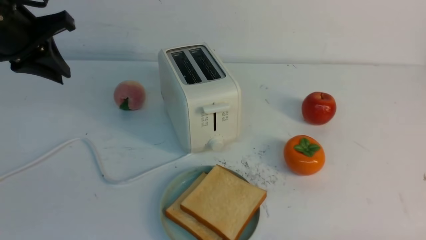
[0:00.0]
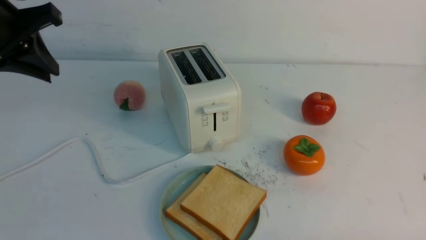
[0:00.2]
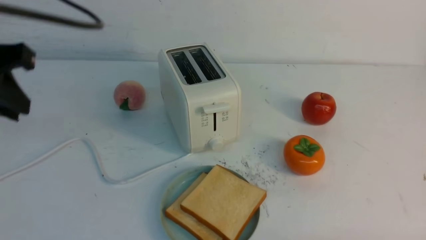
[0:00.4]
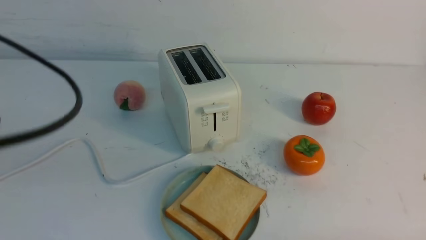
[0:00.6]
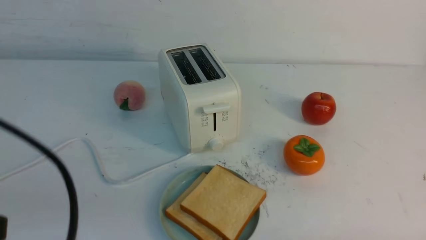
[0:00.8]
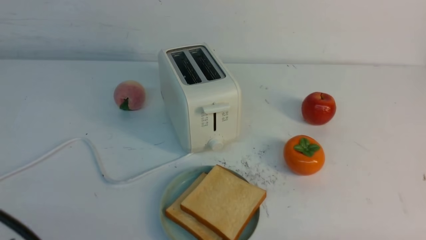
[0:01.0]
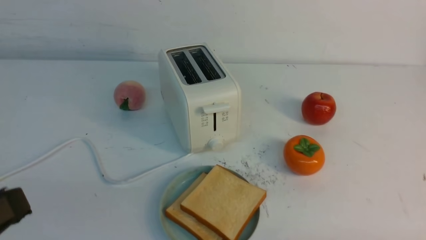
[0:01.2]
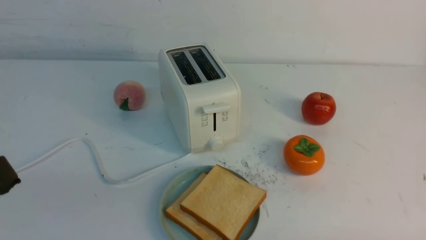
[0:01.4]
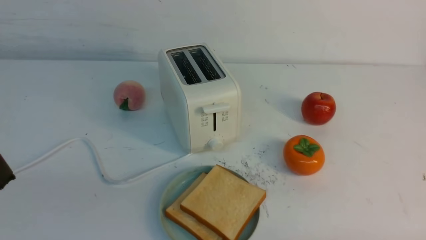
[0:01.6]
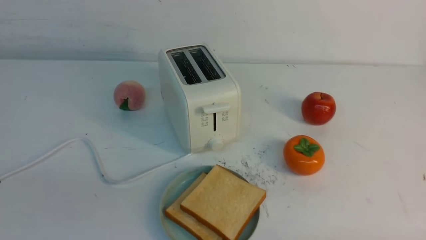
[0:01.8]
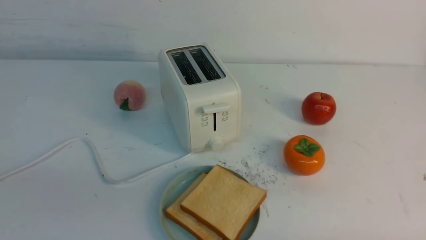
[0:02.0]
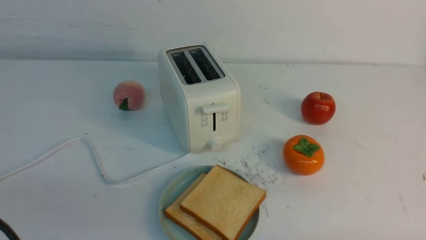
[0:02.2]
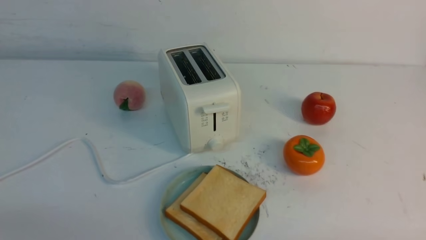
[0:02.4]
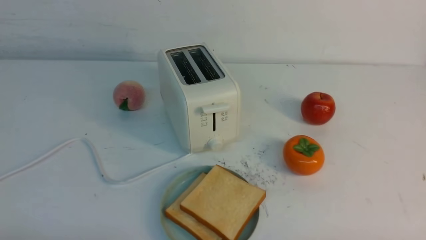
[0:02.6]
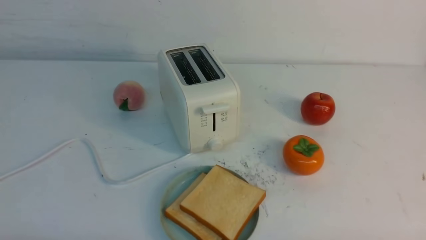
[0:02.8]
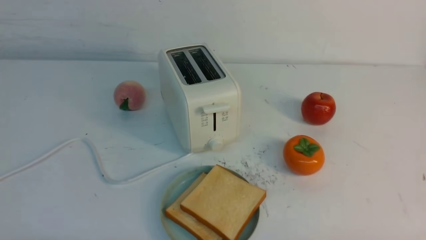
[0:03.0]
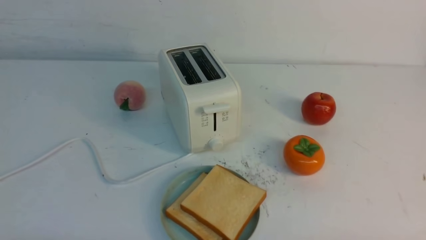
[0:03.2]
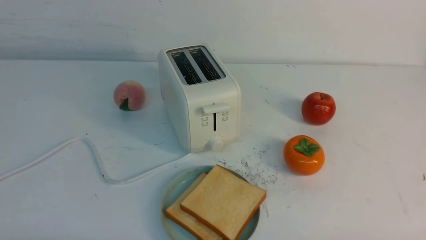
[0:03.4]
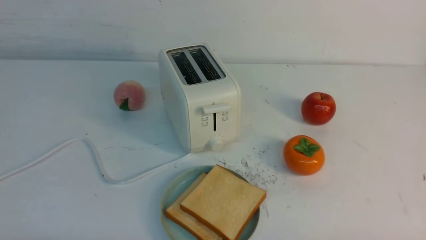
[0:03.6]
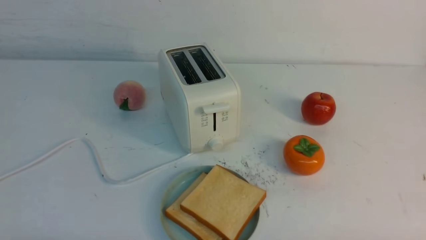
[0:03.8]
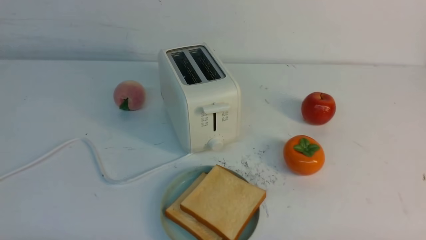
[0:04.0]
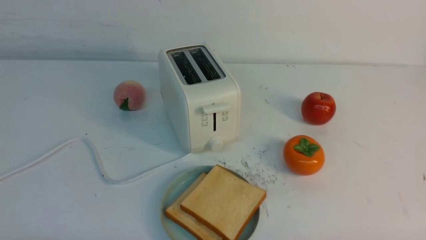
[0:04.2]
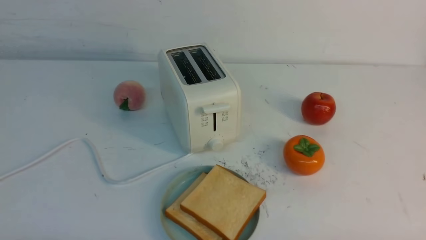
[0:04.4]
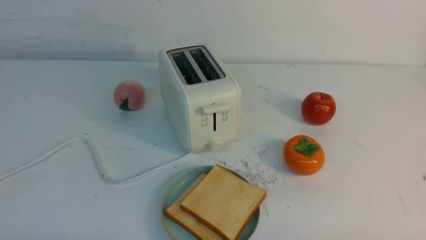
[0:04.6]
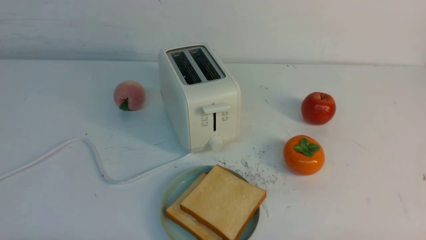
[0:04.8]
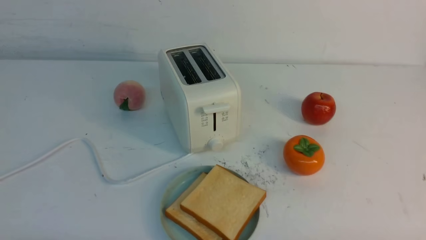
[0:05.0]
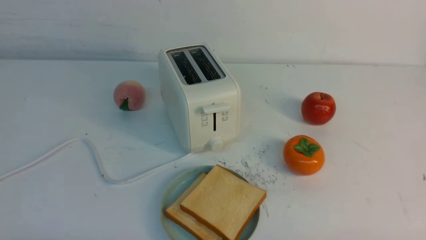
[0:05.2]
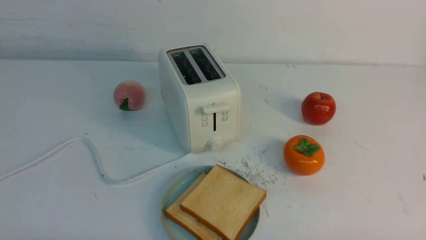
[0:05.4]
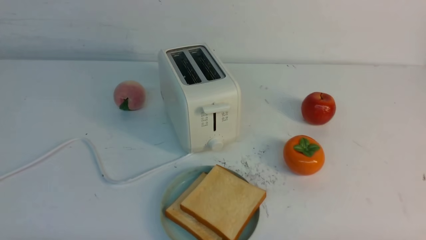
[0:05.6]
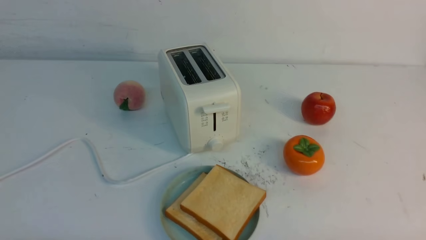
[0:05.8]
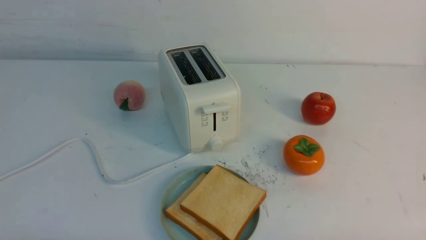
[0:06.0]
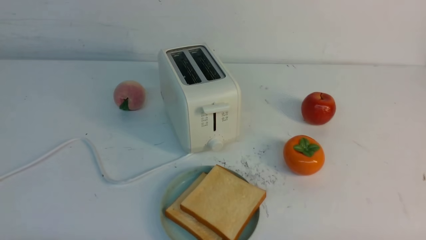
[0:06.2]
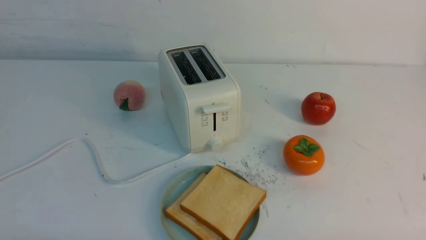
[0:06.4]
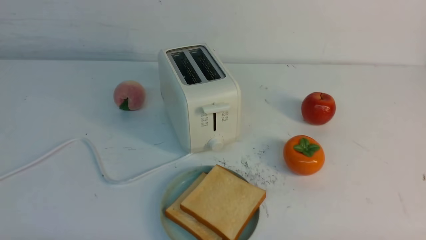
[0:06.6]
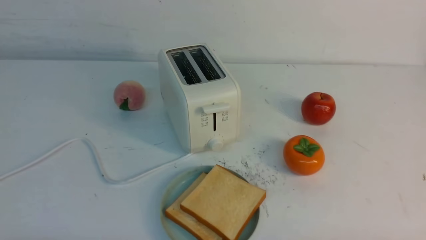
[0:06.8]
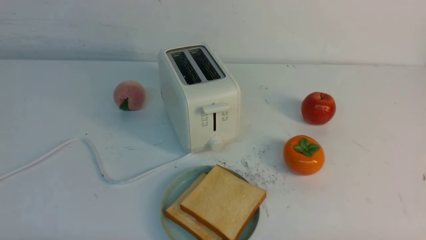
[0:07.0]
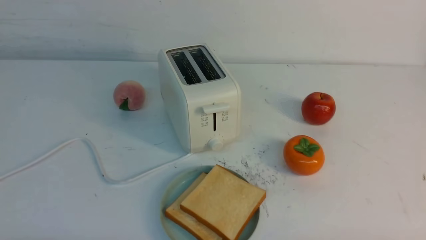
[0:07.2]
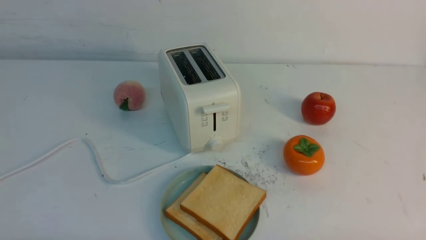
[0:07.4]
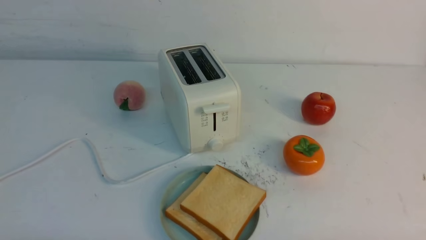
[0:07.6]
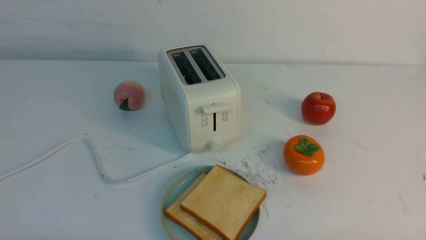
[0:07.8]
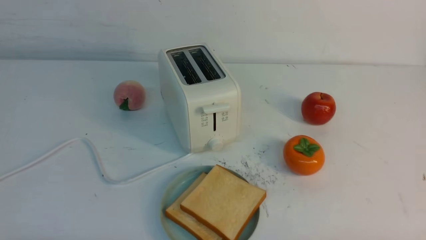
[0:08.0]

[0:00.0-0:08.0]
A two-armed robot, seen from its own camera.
Task of the whole recording: take toasted bread from bread machine on white table place on plate.
0:00.0 to 0:01.6: The left gripper shifts some 30 cm backward.
0:03.2 to 0:08.0: Both grippers stay put.
